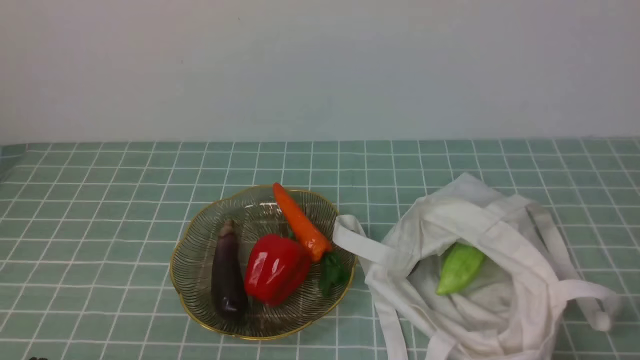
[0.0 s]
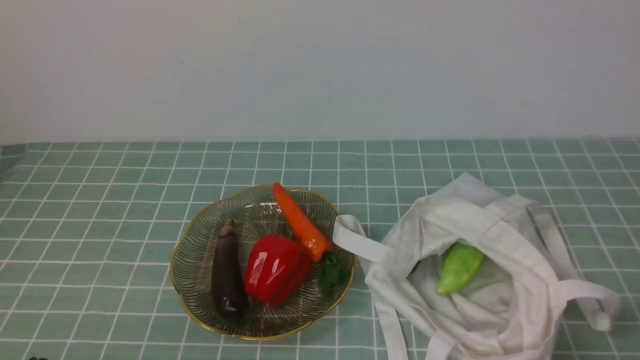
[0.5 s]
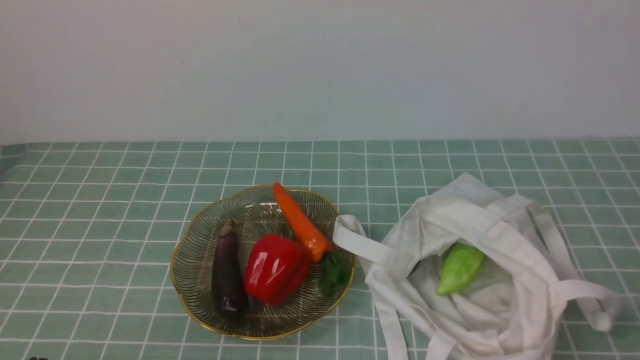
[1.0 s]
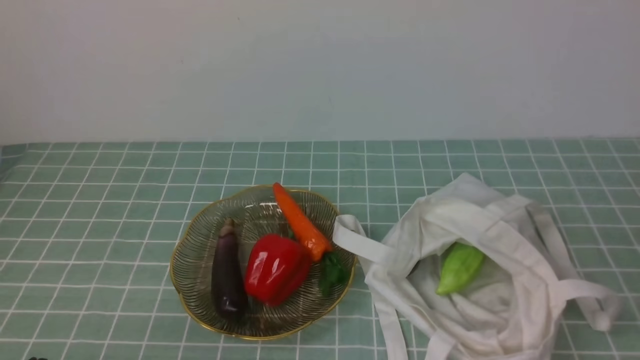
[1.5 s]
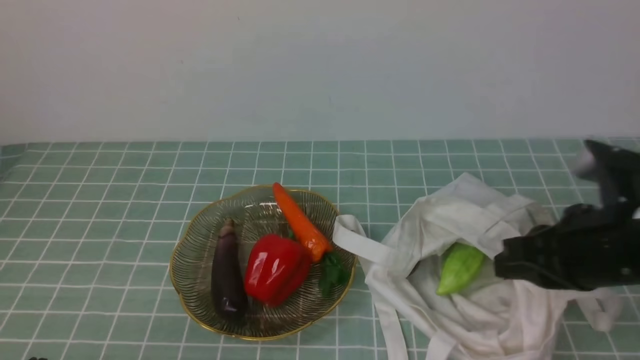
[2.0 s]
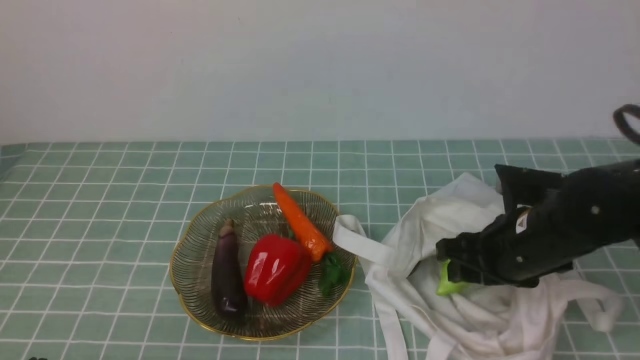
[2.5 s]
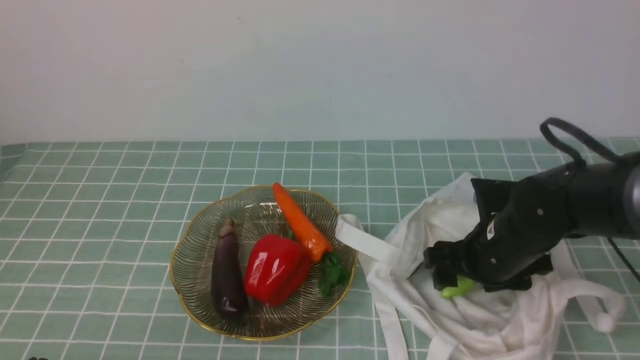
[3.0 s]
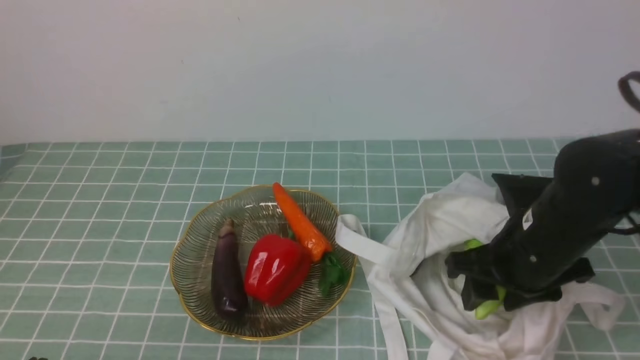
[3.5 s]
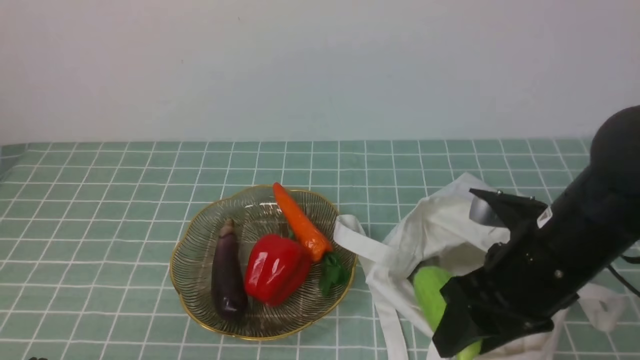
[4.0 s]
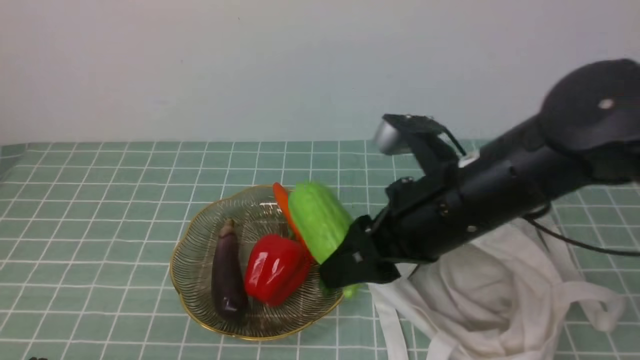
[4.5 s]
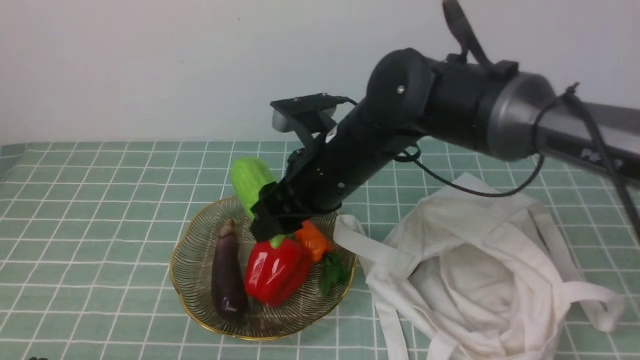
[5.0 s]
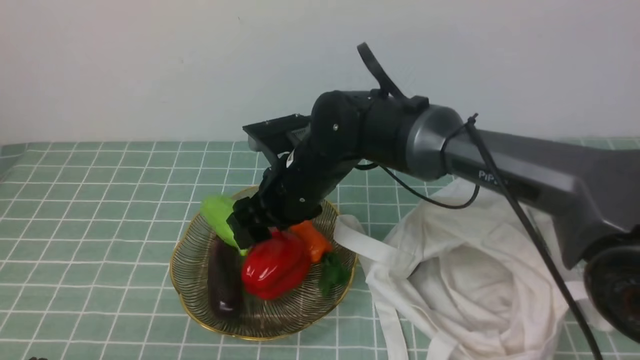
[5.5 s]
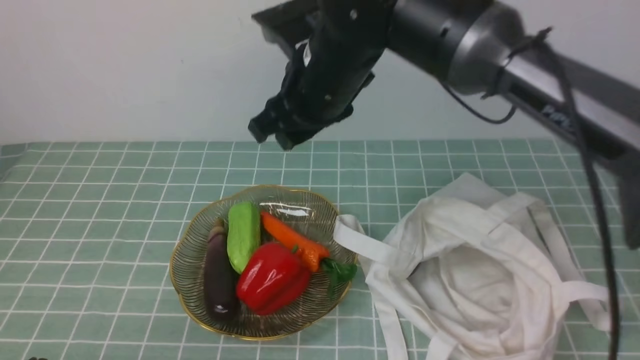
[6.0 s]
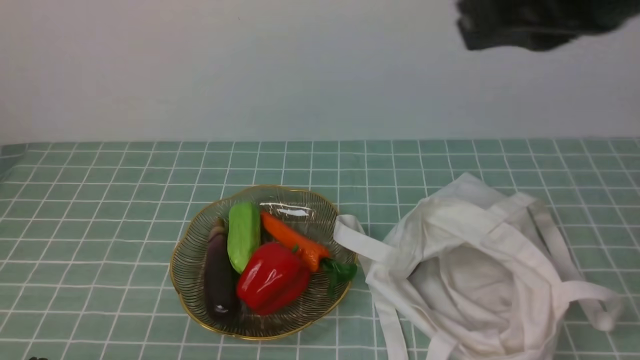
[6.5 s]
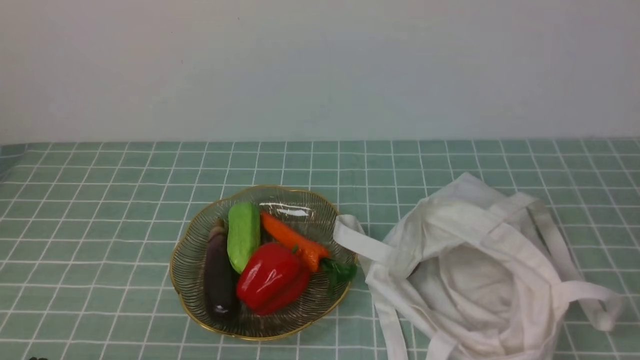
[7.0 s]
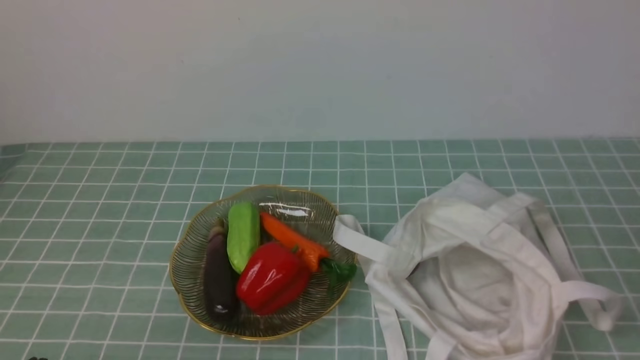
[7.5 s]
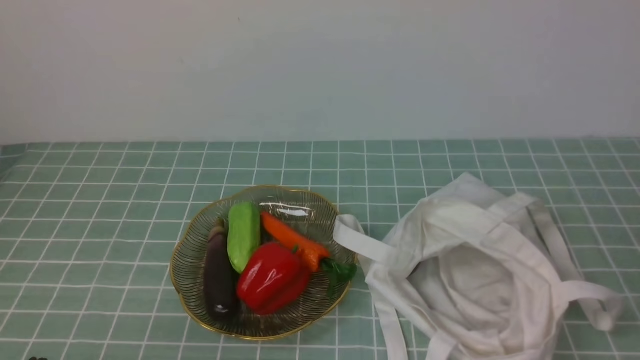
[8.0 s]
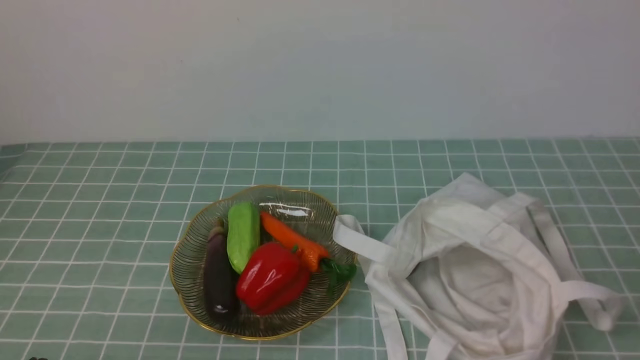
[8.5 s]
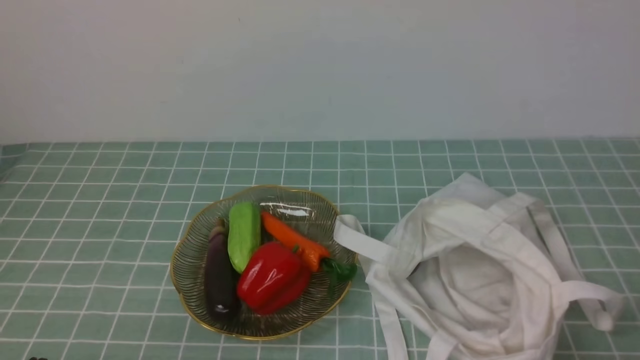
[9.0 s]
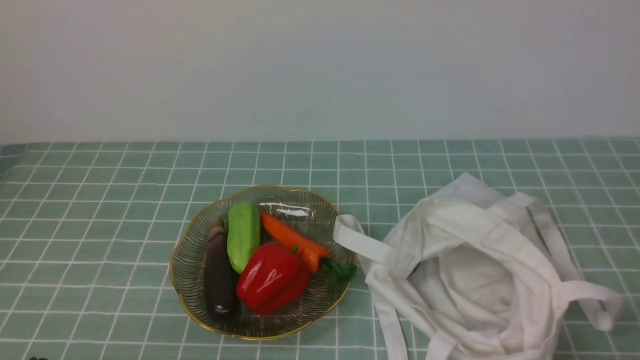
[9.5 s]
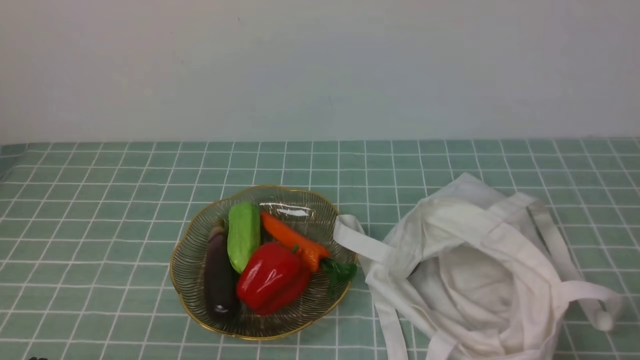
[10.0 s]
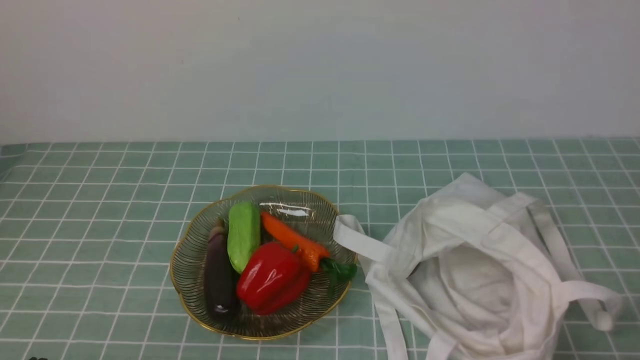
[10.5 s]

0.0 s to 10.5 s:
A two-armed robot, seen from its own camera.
Task of the whole recording: take vegetables from cloth bag on blue coffee tablecloth place on plate.
Step, 0.0 to 3.0 s: Grasp the bitter melon with right gripper.
Step, 3.5 to 5.5 s: Place the bitter melon on the plate with right gripper.
0.0 to 2.0 s: The right gripper moves forward, upward and to the left, about 20 cm.
2.0 to 4.0 s: The right gripper moves to the left, some 5 cm, goes downward and returns, roughly 10 cm each way, and opens up.
4.0 to 6.5 s: The right gripper is displaced upward by some 20 cm, and closes its fingers.
6.5 to 8.5 s: The right gripper goes approximately 30 cm downward, backward and to the right.

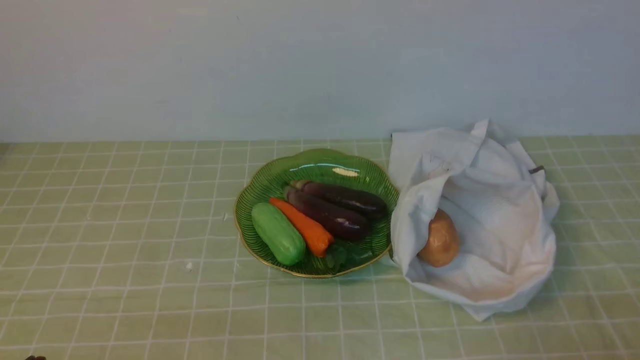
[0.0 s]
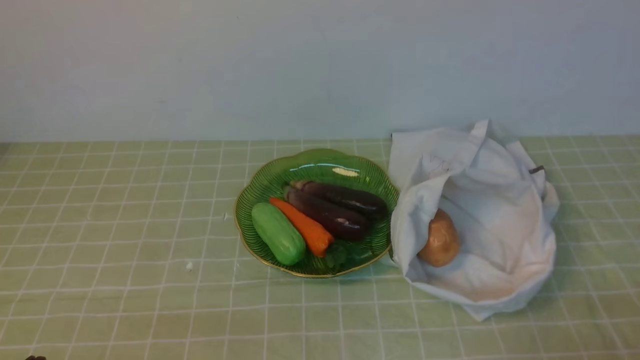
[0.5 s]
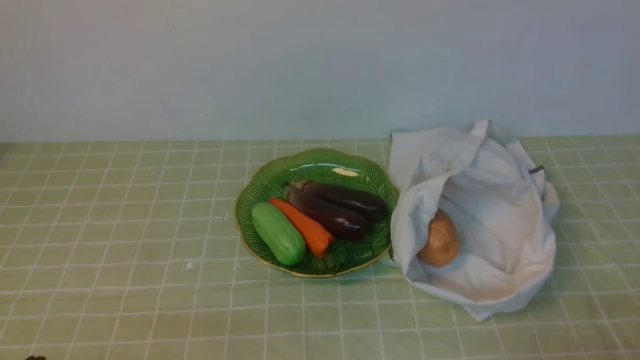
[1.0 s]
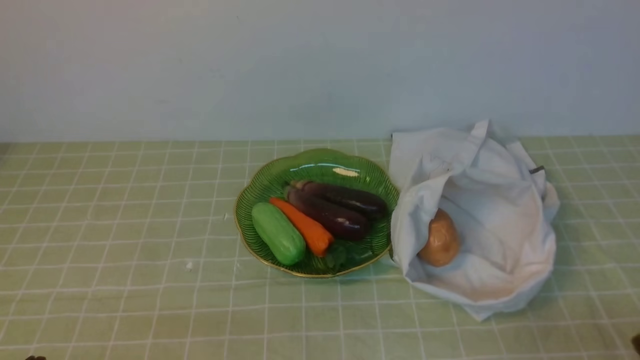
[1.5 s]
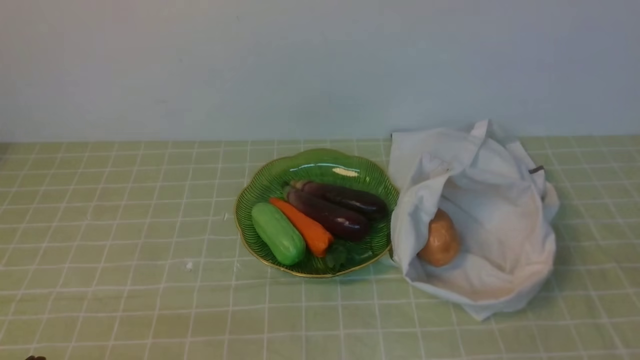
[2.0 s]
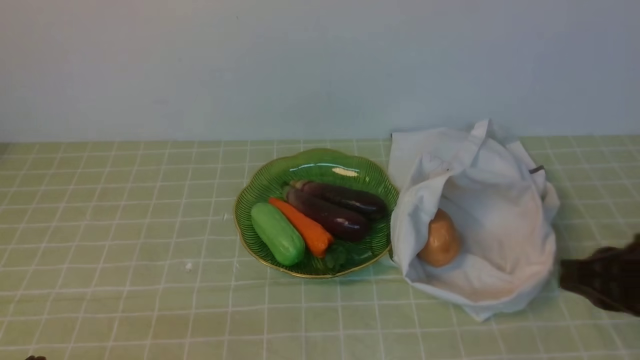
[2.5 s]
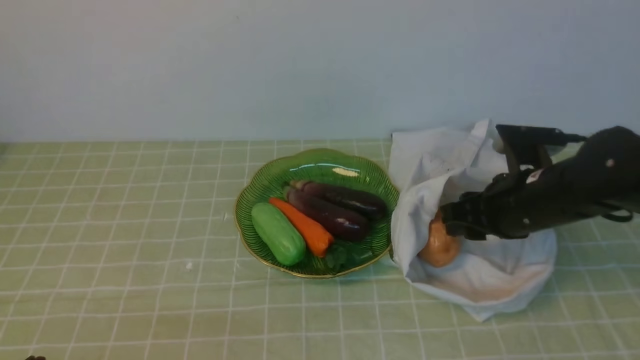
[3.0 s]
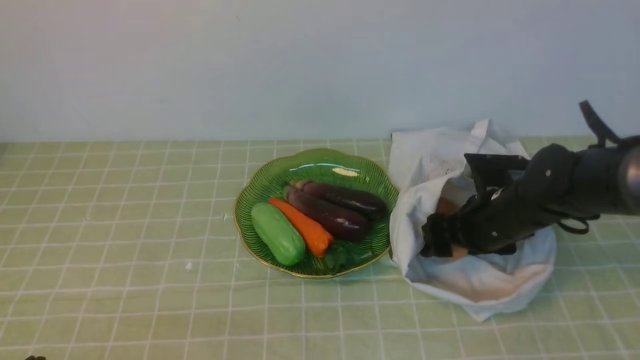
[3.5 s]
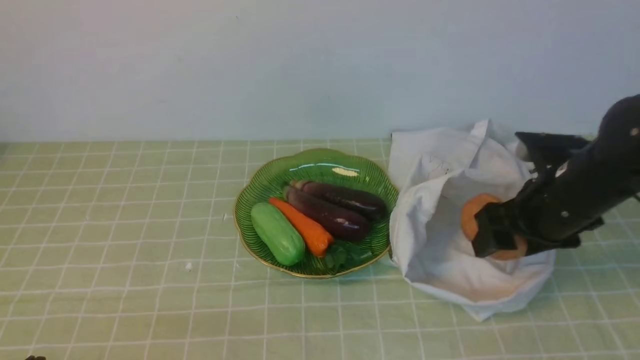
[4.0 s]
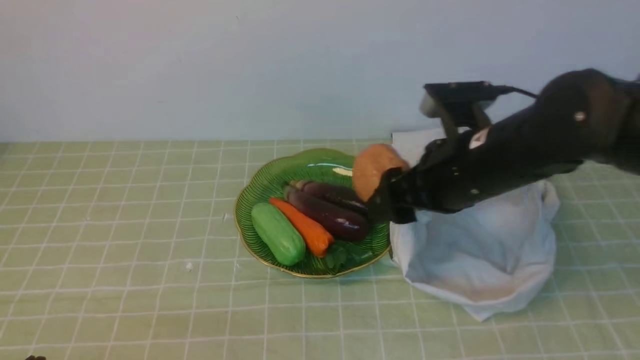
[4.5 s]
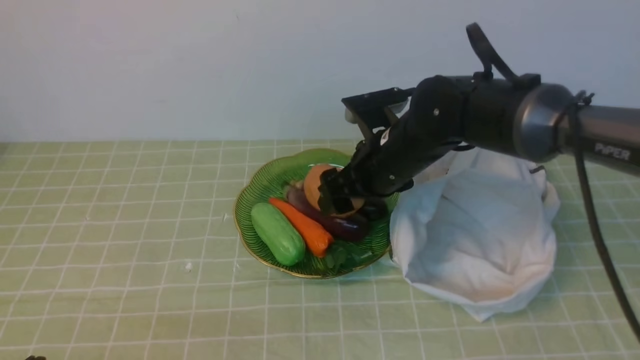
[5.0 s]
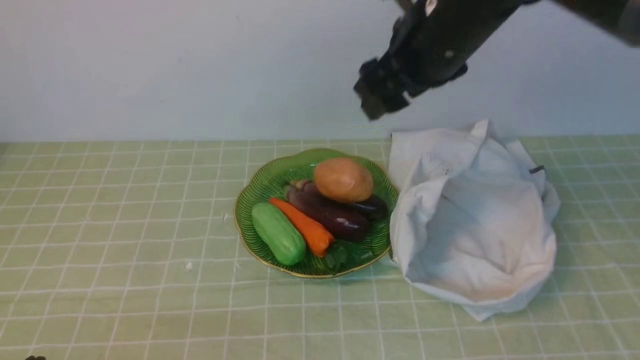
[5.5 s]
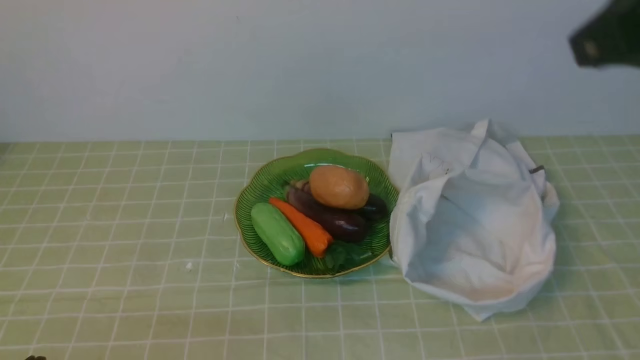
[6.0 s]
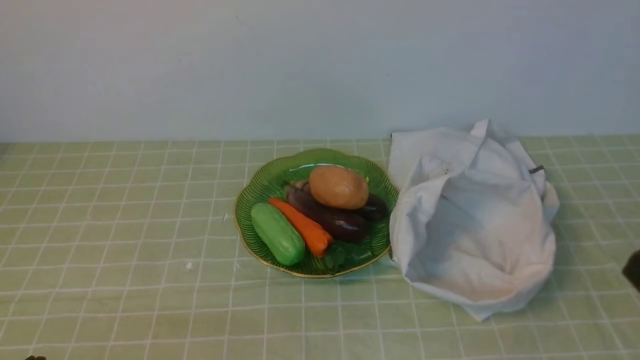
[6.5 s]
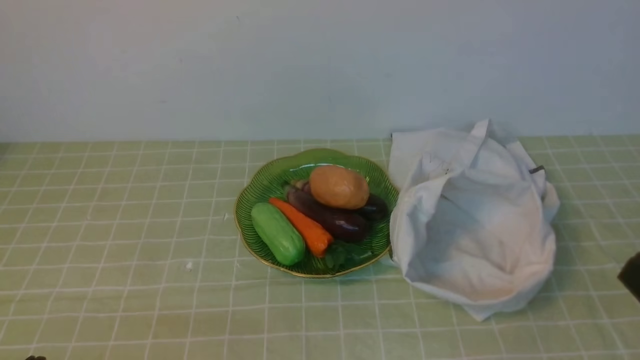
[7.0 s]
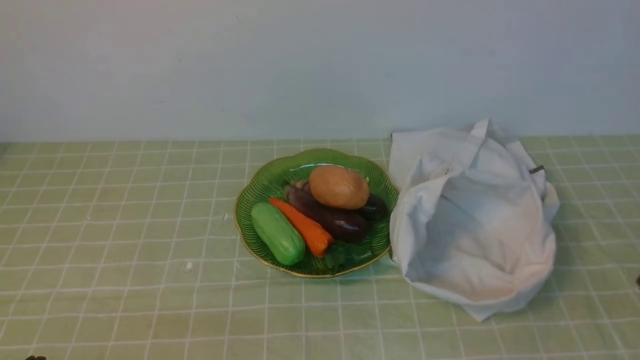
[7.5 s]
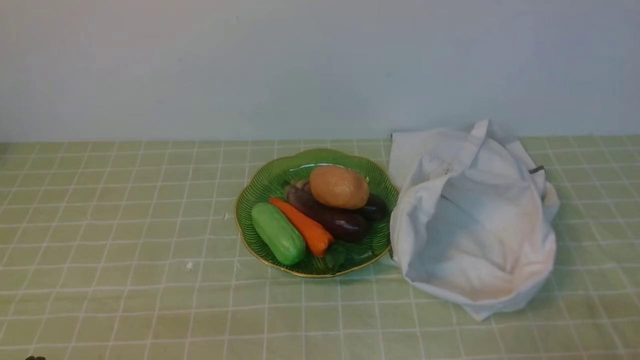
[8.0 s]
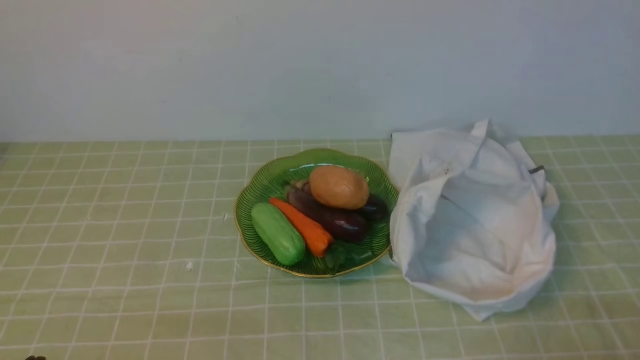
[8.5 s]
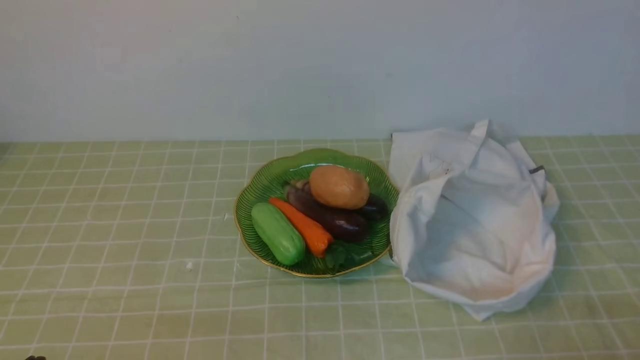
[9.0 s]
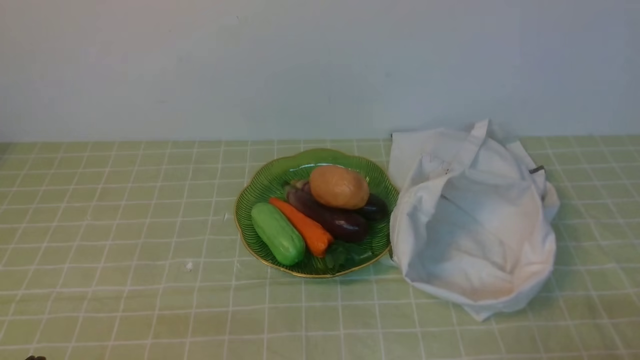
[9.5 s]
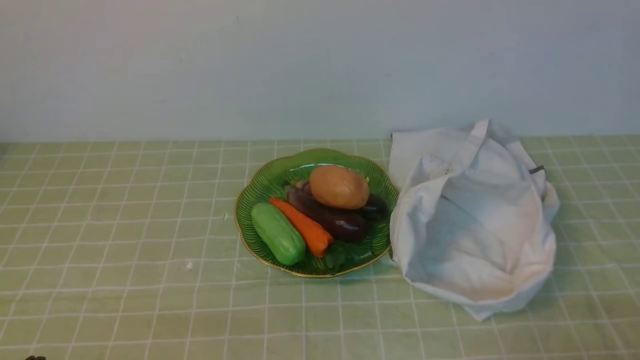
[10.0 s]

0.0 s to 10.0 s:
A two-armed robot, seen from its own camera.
Task of the whole recording: take vegetables from bag on green coffee tablecloth place on plate.
Step, 0.0 to 3.5 s: Grasp the potato with right gripper.
Step, 4.0 to 5.0 s: Place the potato on the plate with right gripper.
2.0 to 4.0 s: The right gripper heads forward, covering roughly 25 cm, and opens its fingers.
4.0 to 6.0 s: The right gripper swings up and down, approximately 25 cm each way, with 2 reversals, and closes up.
6.0 to 8.0 s: The right gripper shifts approximately 30 cm downward and backward.
